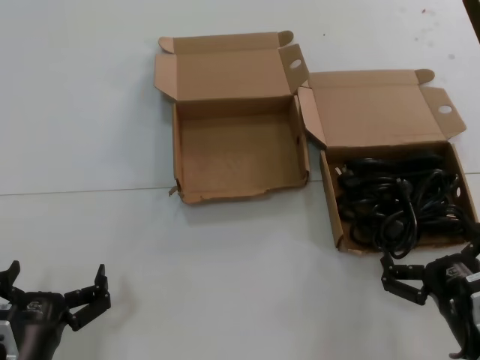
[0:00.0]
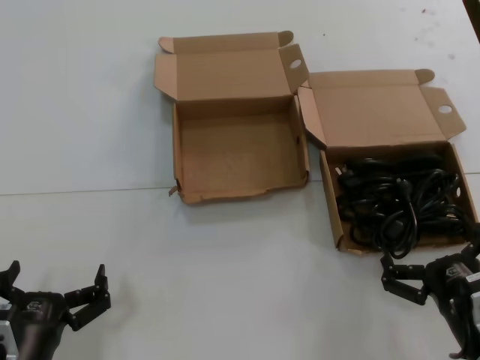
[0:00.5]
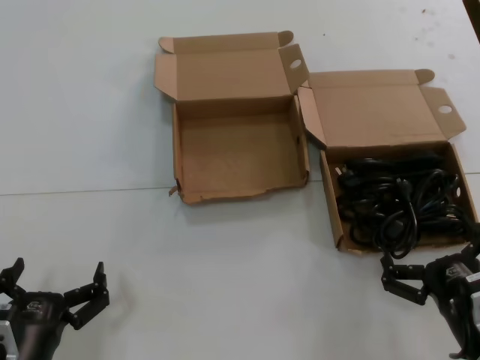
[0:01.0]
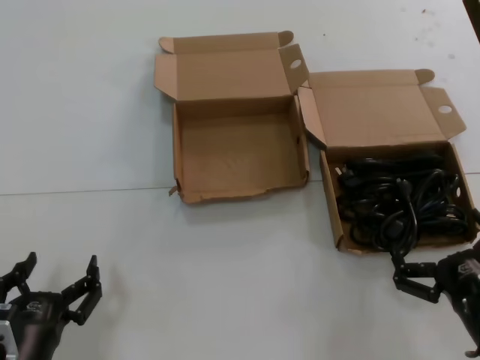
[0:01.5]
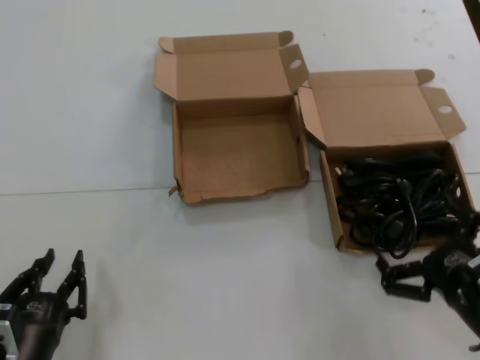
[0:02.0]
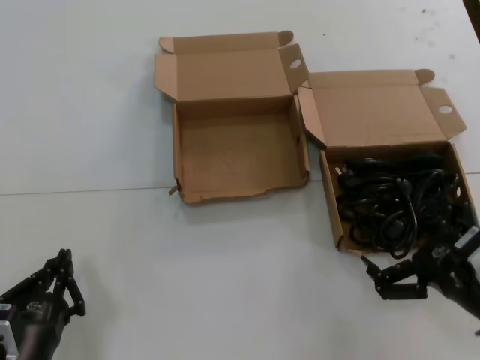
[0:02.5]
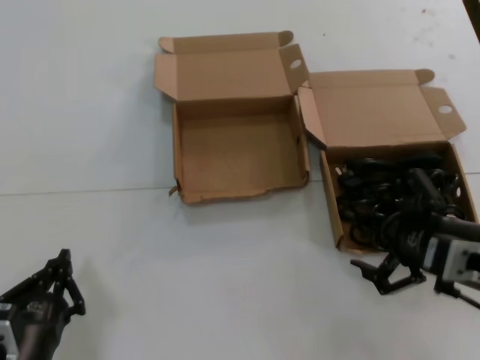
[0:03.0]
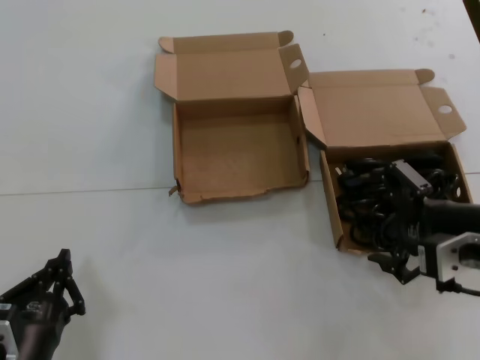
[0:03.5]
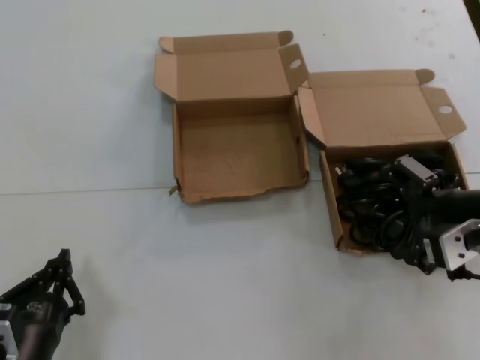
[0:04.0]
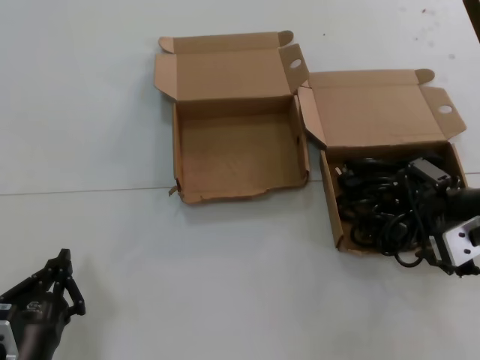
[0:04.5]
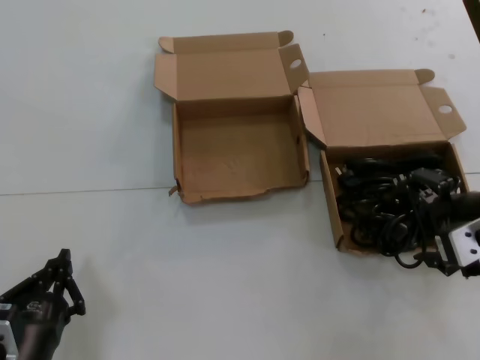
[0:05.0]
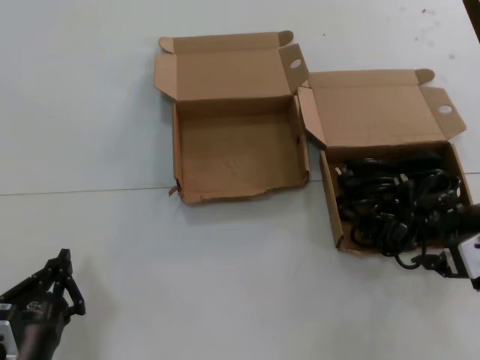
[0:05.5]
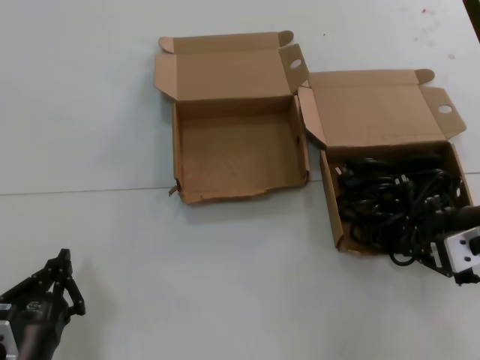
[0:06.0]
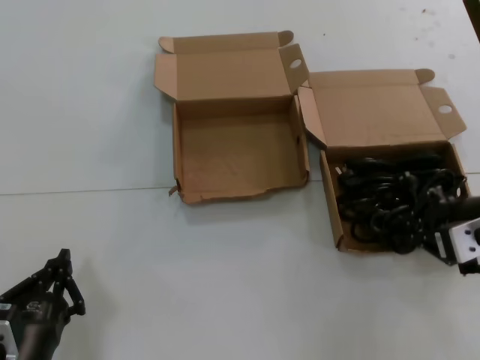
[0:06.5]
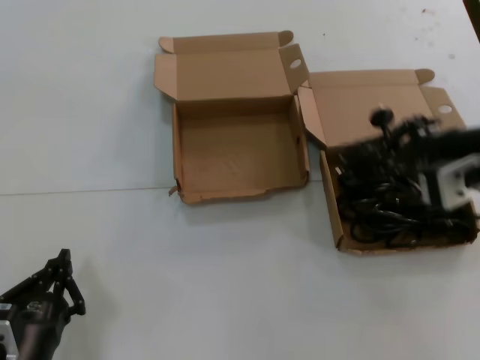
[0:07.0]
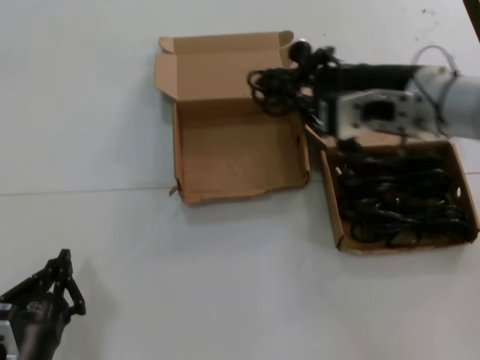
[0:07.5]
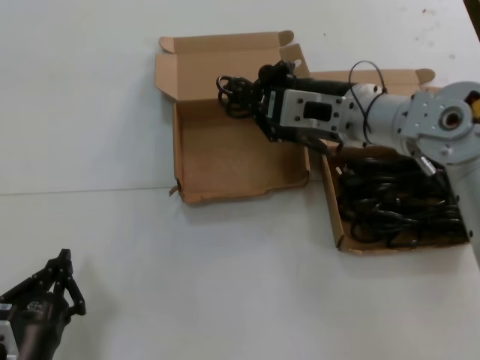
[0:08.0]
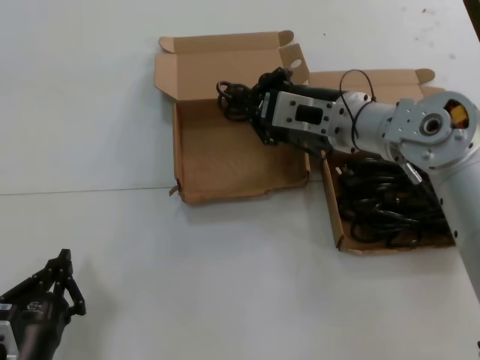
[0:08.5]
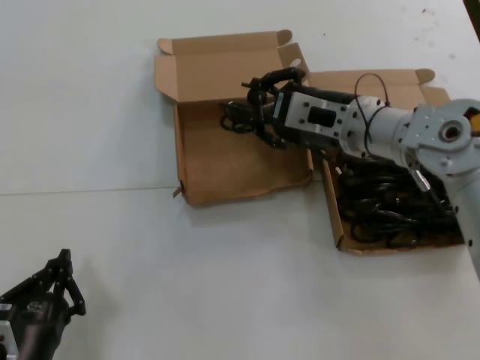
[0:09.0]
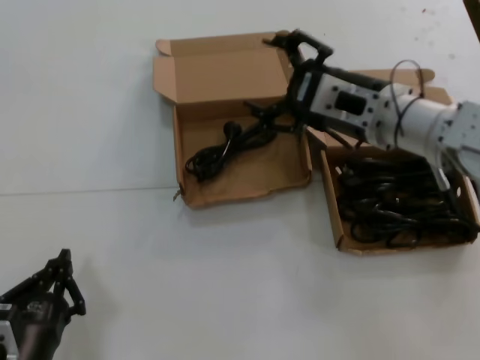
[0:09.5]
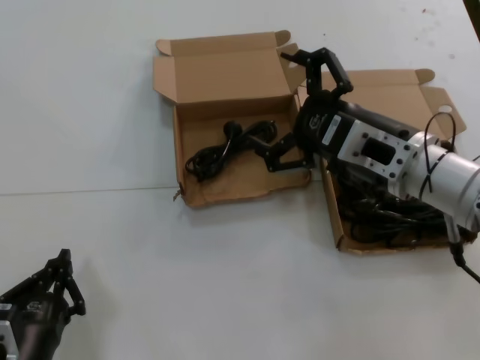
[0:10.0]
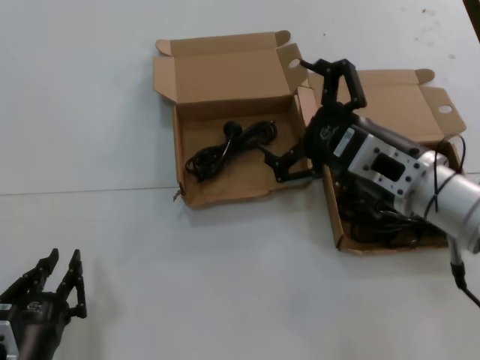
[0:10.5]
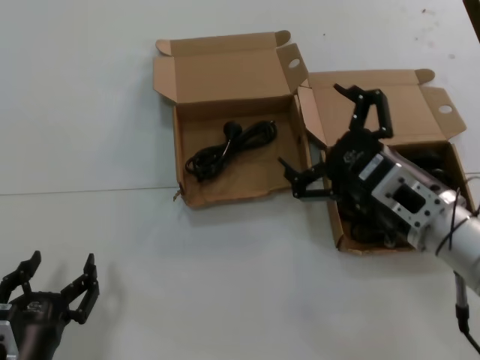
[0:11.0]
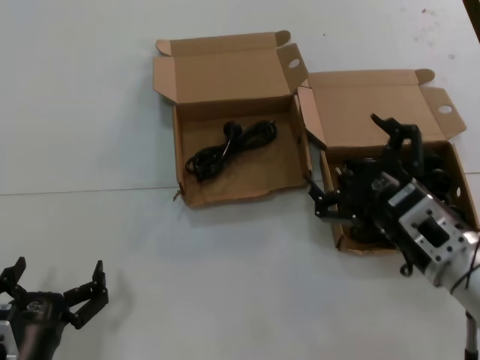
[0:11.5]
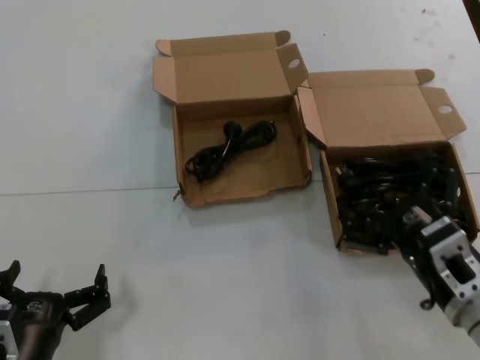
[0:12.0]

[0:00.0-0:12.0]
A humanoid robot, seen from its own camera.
Task of the whole recording: take the parts from the box containing them and put them into an empty box.
Step, 0:00.0 to 0:06.0: Grasp the data cable.
Step, 0:06.5 to 0:09.0: Place the data cable in the another box.
0:00.0 to 0:02.0: The right hand changes place by about 5 cm.
0:02.0 to 0:04.0: The right hand travels upward and forward by roughly 15 cm.
0:04.0 to 0:06.0: There are only small adjustments of the hands.
0:06.0 to 0:08.0: The right hand moves to the left, forward and upward, roughly 20 cm.
0:08.0 to 0:10.0: The right hand goes some 10 cm backward.
0:10.0 to 0:12.0: The right hand is displaced downward and backward by some 15 cm.

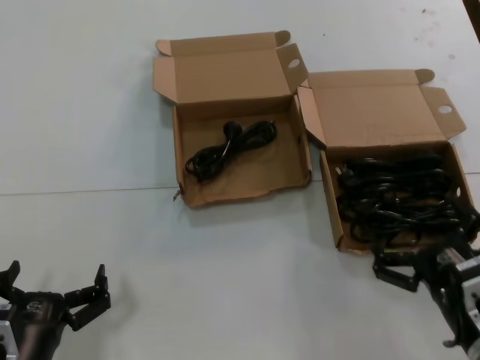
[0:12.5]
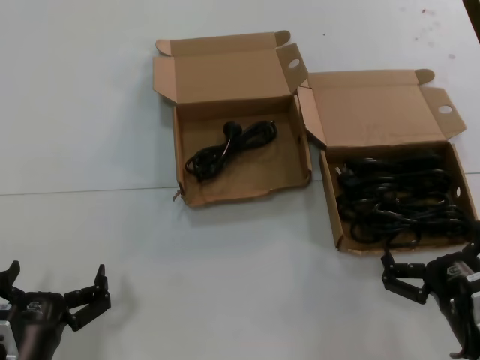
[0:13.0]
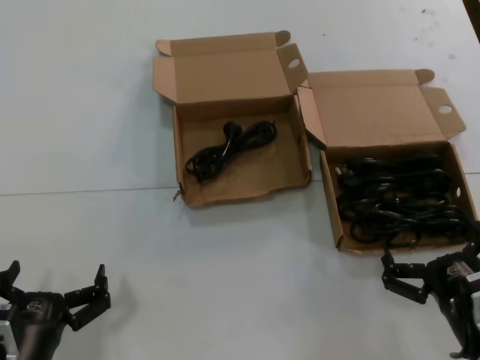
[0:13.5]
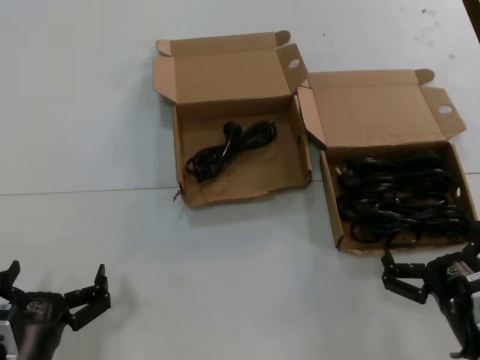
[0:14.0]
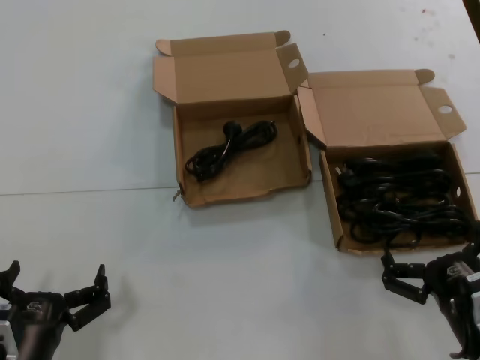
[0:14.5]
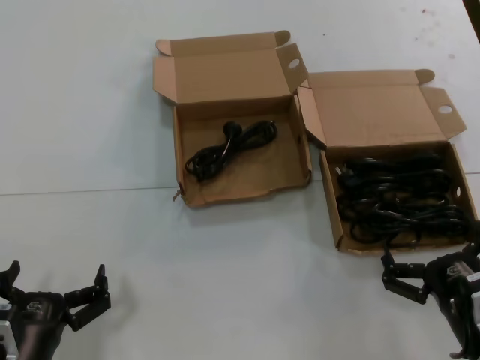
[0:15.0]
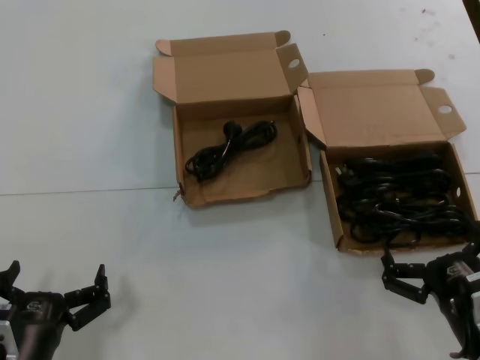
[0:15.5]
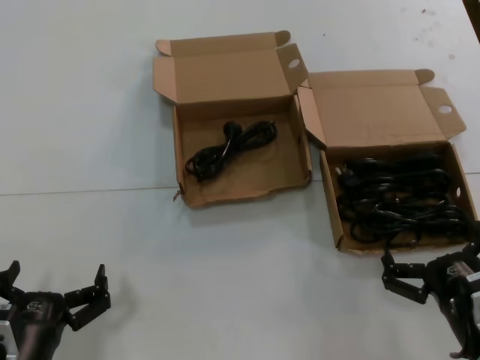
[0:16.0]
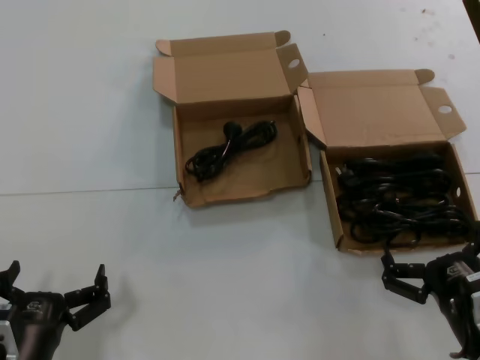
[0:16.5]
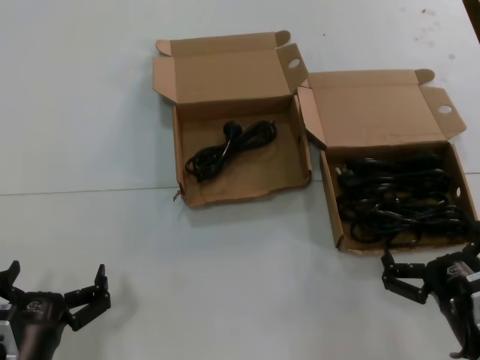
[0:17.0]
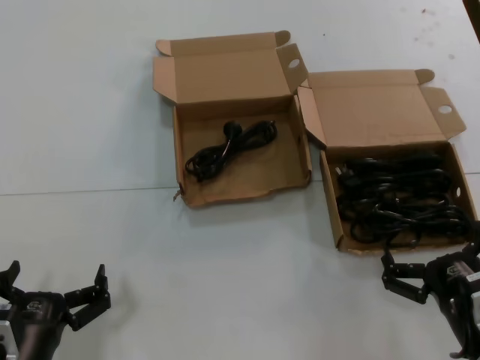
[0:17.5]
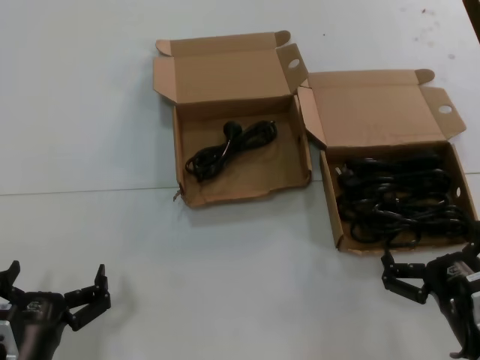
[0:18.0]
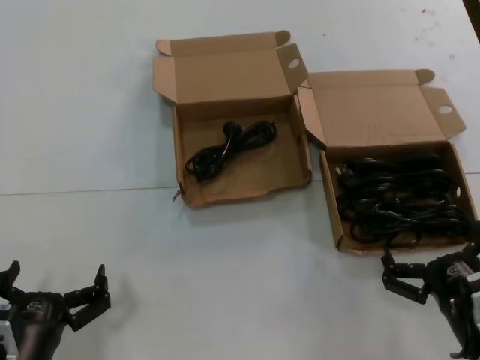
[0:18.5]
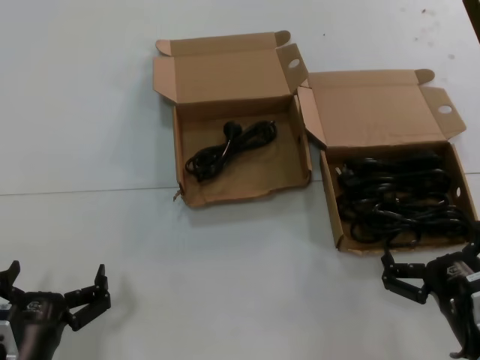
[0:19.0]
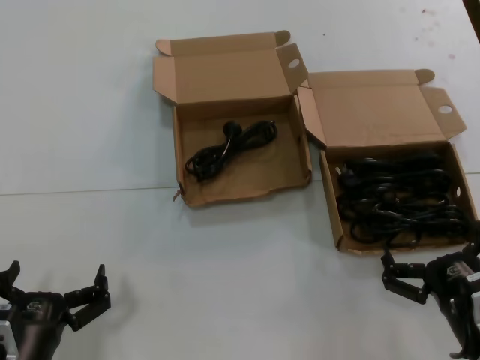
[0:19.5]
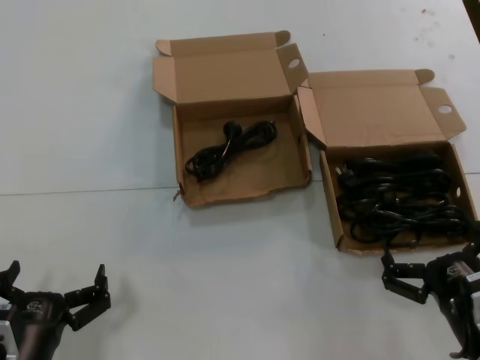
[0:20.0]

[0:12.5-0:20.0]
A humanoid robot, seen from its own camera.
Task of the whole recording: take the parts from the box containing them and put them into an empty box.
0:12.5 to 0:14.5: The hands move only a little.
0:14.5 to 0:20.0: Both hands stay put.
